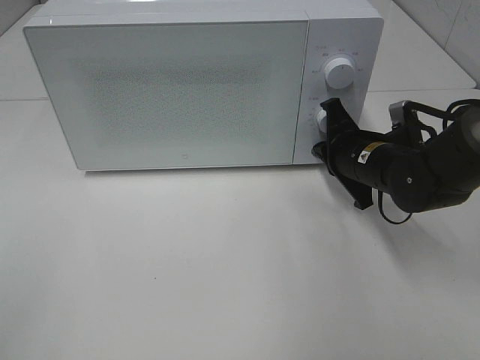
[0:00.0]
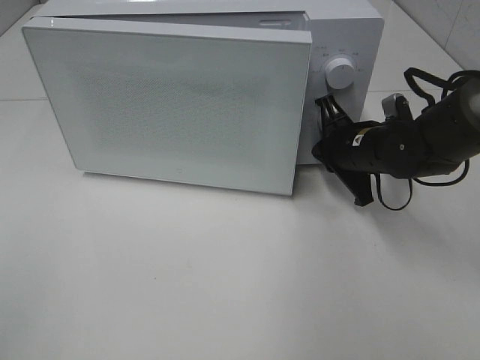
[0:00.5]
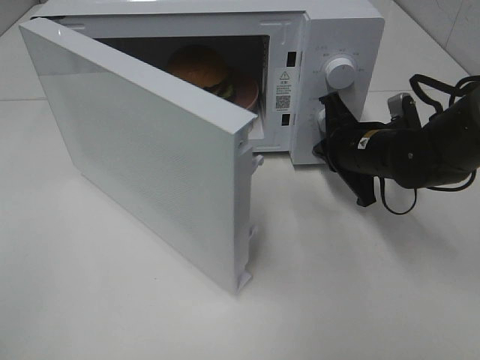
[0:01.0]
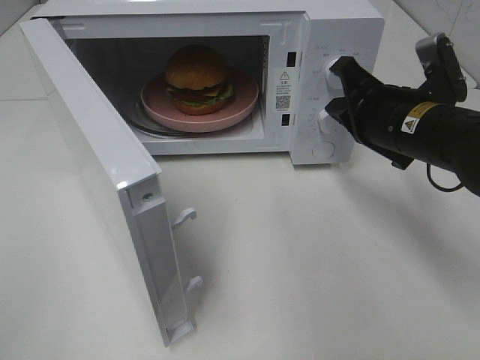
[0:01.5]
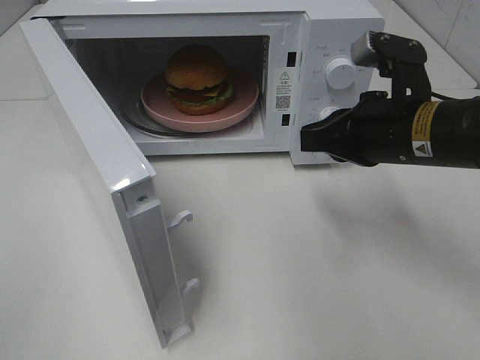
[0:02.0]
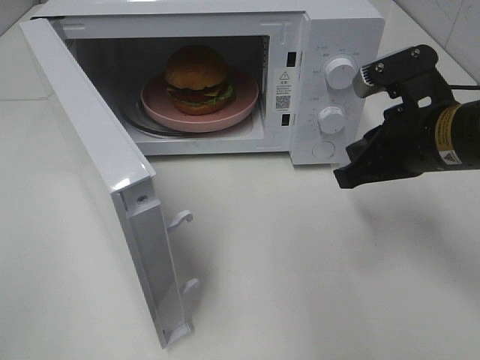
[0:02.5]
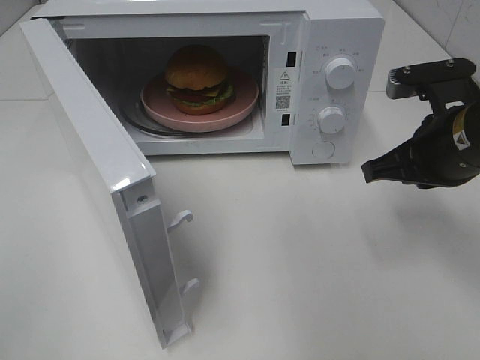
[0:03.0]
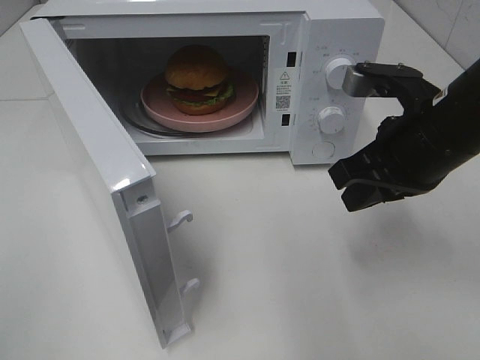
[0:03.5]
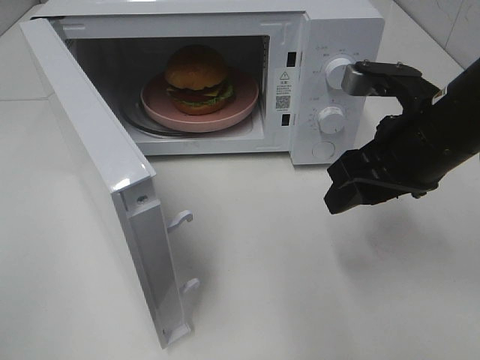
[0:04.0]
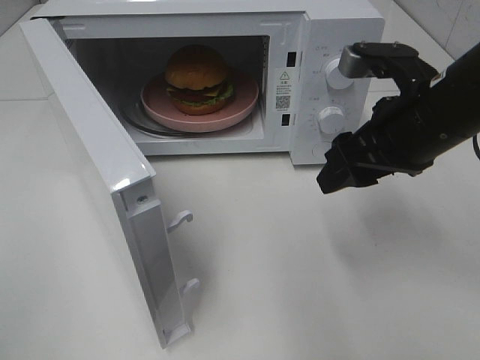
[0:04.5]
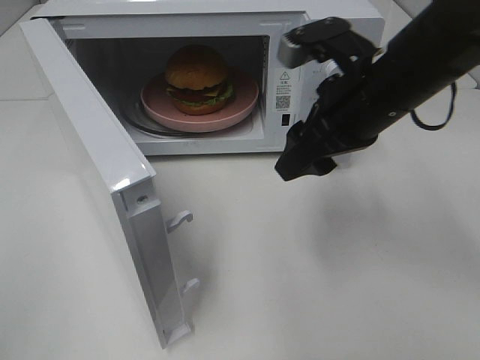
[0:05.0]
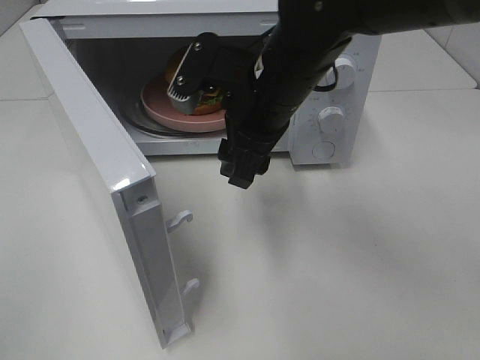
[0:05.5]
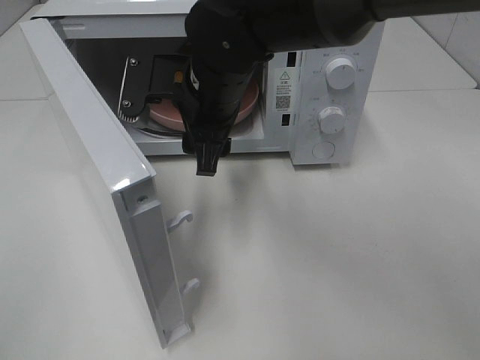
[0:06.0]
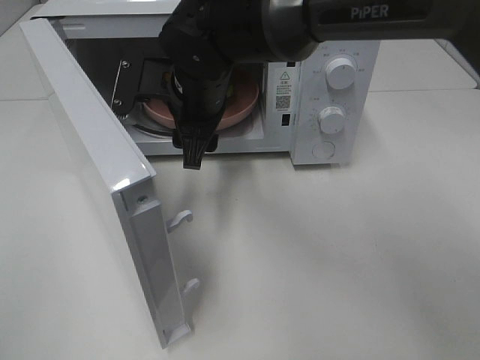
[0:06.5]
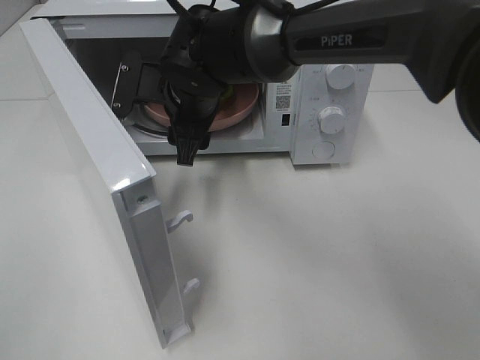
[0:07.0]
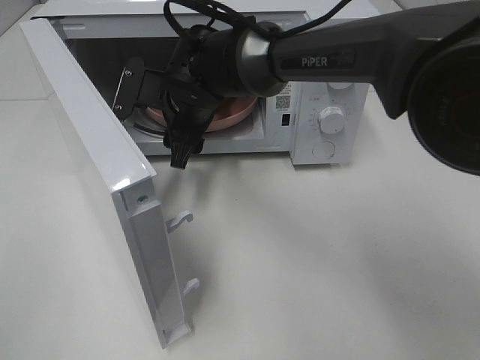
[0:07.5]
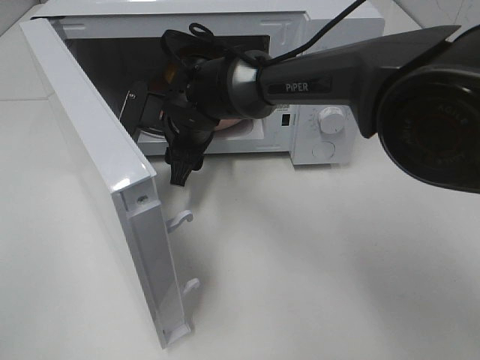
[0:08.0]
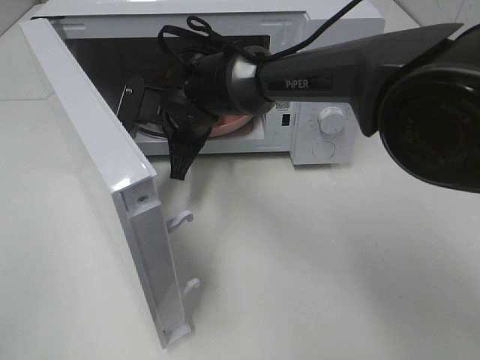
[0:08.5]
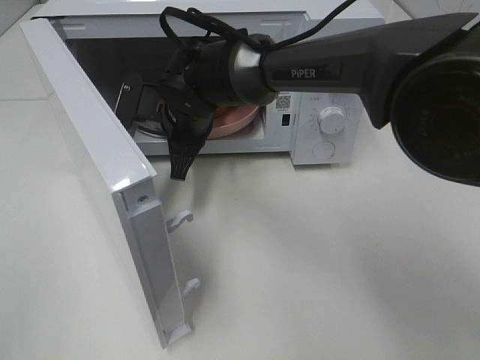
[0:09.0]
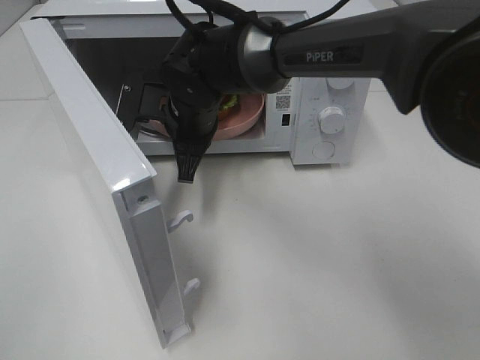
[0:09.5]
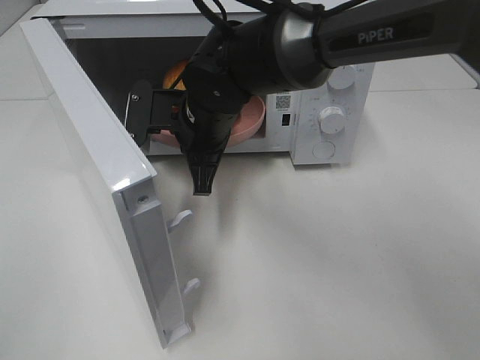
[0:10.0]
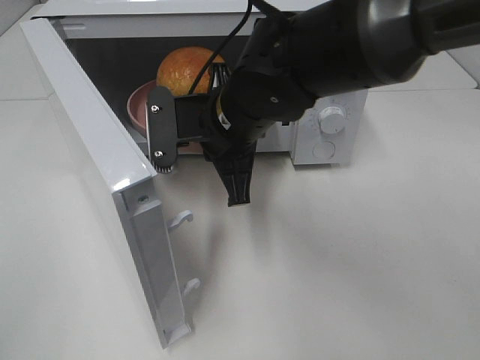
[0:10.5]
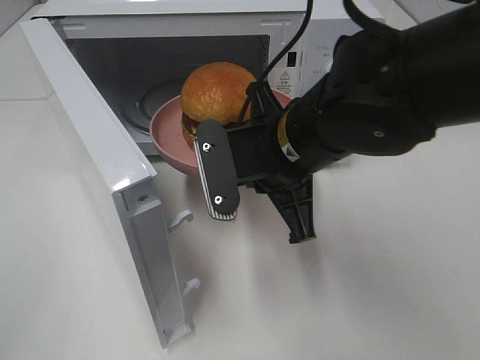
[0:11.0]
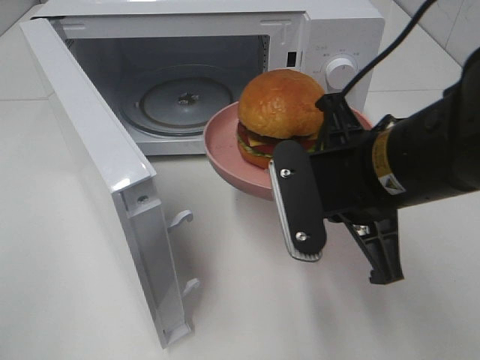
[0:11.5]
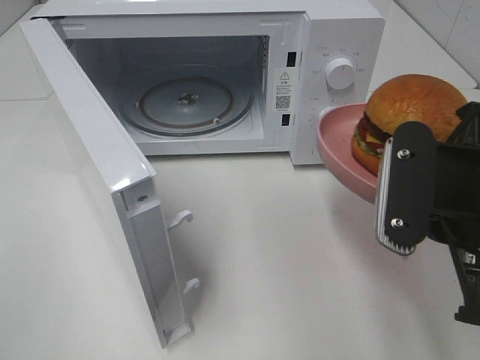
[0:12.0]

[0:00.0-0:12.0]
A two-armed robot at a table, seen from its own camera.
Task of the whole recording: Heat the burger.
Step, 0:01.5 to 0:08.5: Right hand: grab the plate with the hamburger.
0:00.0 to 0:02.0: The right gripper goes about 15 cm upward and backward.
0:02.0 to 0:04.0: The right gripper opens.
0:04.0 to 0:06.0: The right gripper moves to the left, about 20 cm.
0:06.0 to 0:08.0: The right gripper goes about 10 cm downward and forward.
0:08.0 to 0:10.0: The right gripper moves roughly 5 cm, and closes its fingers.
0:10.0 to 0:12.0: The right gripper is displaced to the right and backward by approximately 30 cm.

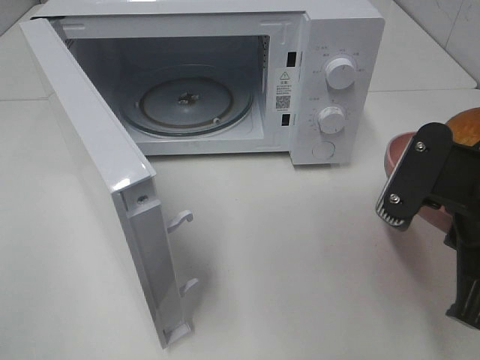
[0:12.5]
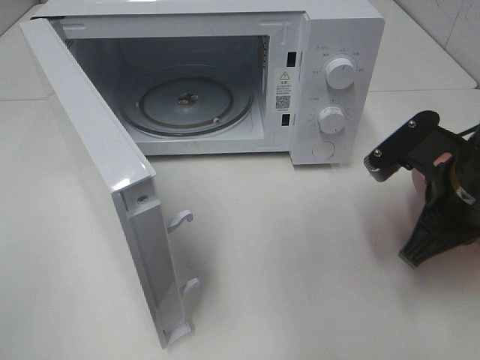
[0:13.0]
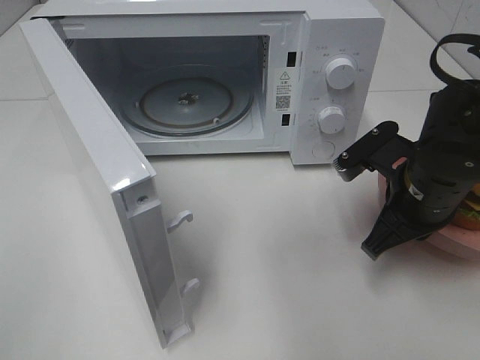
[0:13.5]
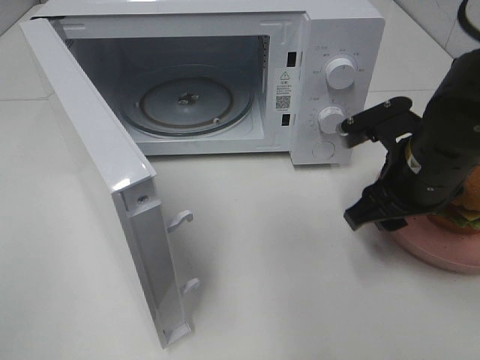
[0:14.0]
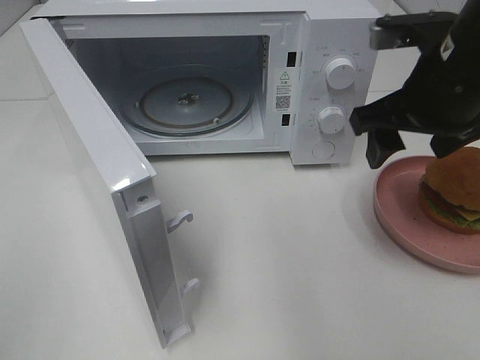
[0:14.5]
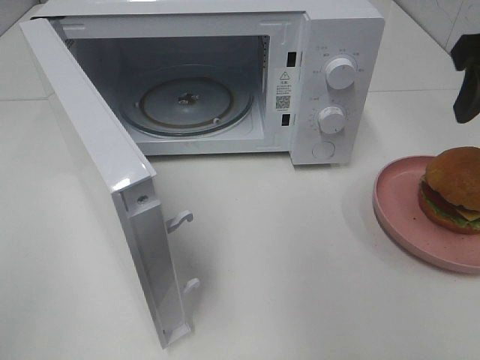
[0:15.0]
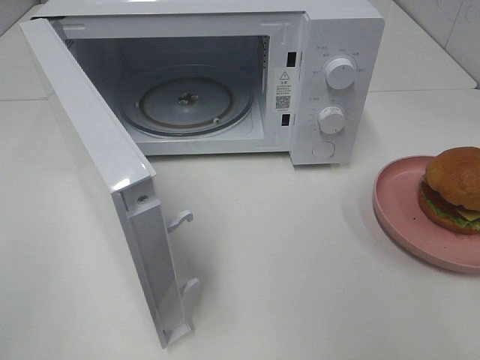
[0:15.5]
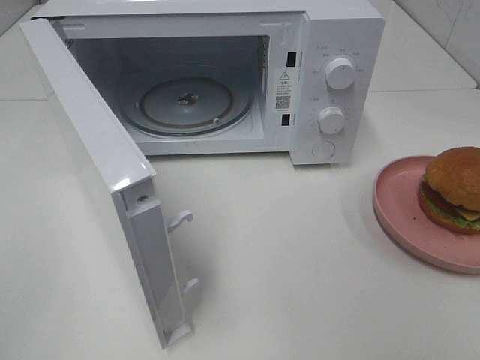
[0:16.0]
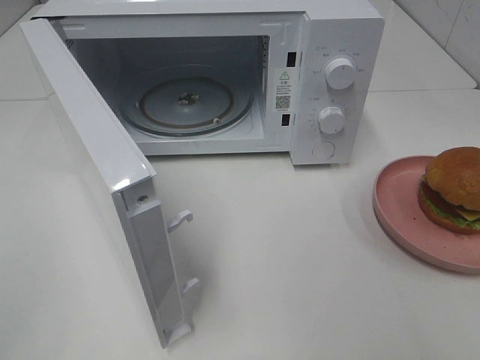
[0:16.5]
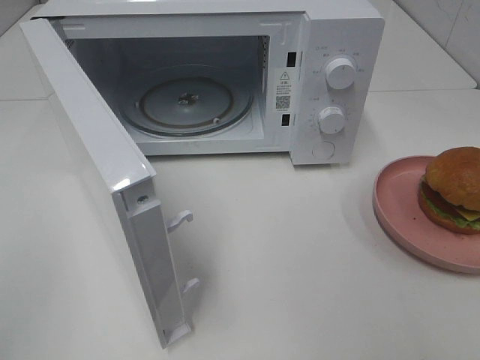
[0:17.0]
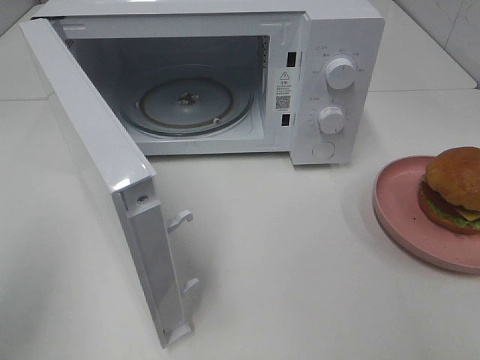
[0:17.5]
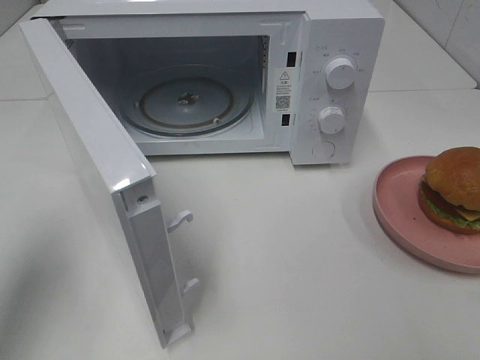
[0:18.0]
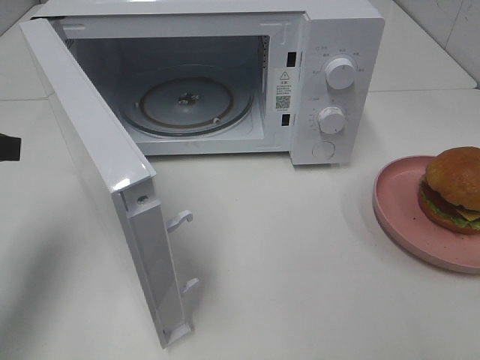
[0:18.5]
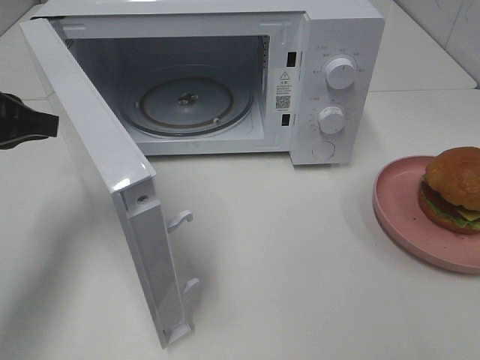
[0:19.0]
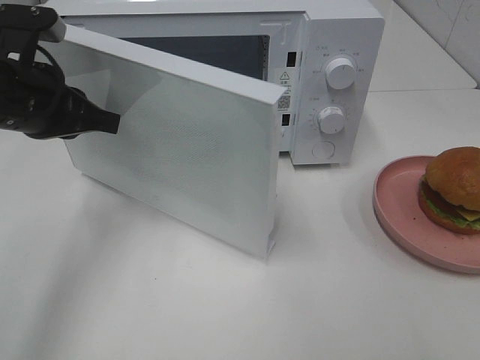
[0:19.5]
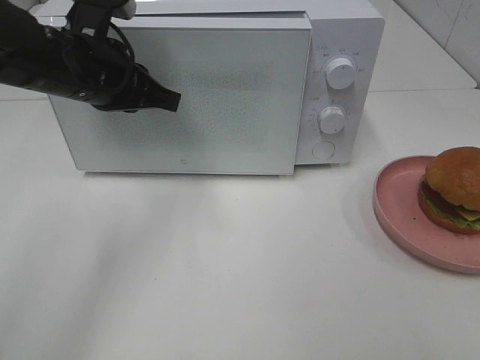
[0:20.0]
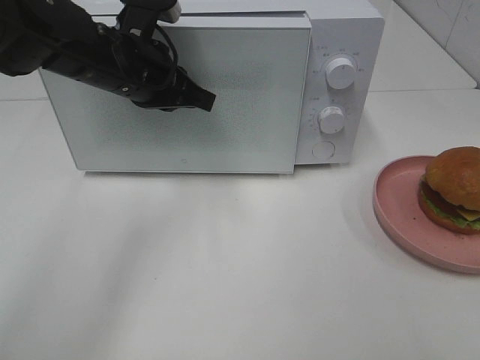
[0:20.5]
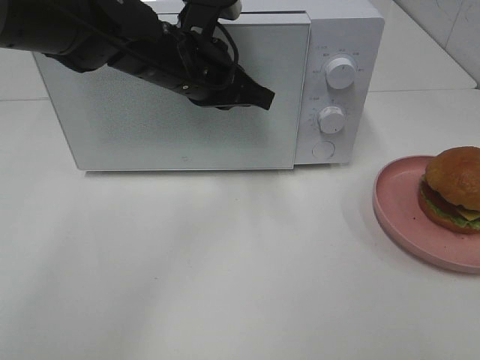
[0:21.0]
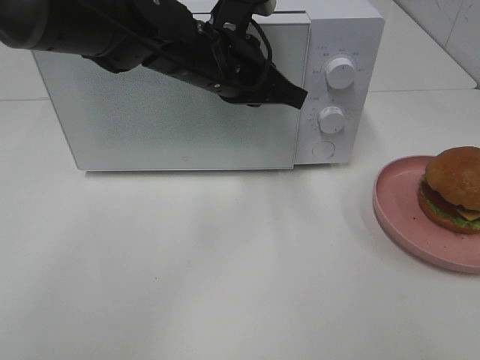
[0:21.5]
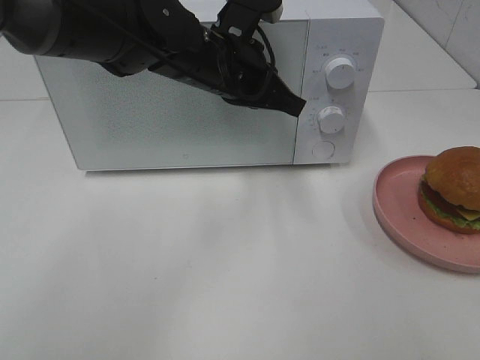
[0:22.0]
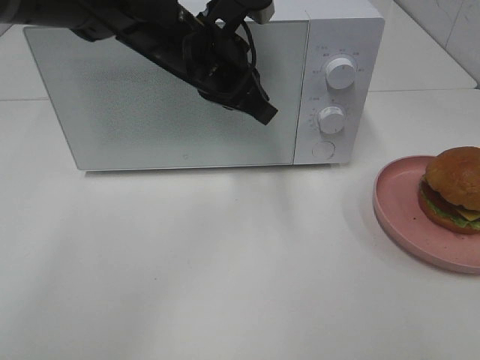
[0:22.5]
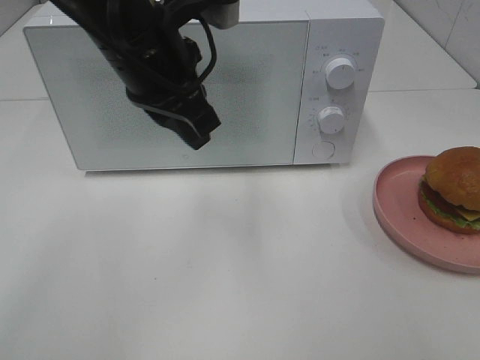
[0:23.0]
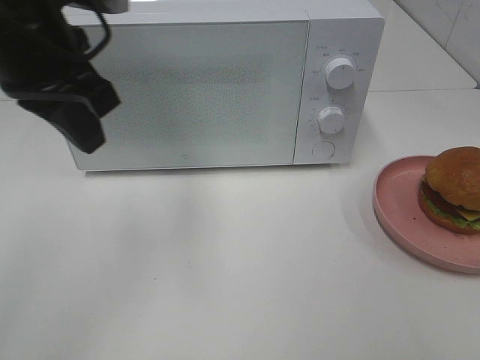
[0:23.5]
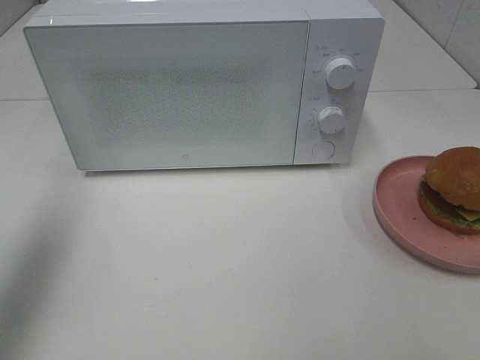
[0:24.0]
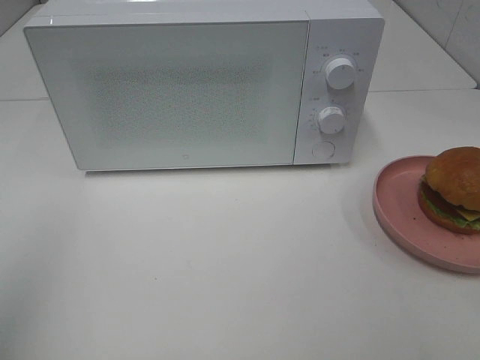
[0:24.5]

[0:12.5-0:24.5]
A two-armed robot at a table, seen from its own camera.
Task of the whole recording: Heat the burger.
Step, 0:14.0 to 0:22.0: Left hand: close the microwave door.
0:12.5 to 0:14.5: The right gripper travels forward by roughly 10 cm, and opens.
0:14.5 to 0:16.5: The right gripper moves backward, some 30 cm.
0:16.5 to 0:18.5: The left gripper goes some 25 cm forward.
0:18.5 to 0:20.5: The left gripper is displaced to the right and forward by about 20 cm.
0:20.5 to 0:22.5: The left gripper goes approximately 10 cm to the right.
0:22.5 to 0:24.5: The left gripper travels backward and to the left by roughly 40 cm.

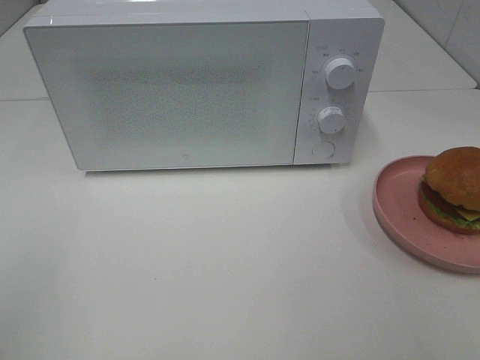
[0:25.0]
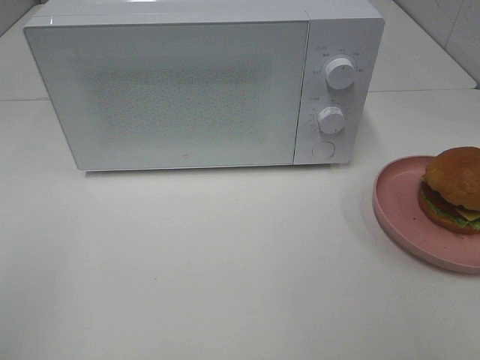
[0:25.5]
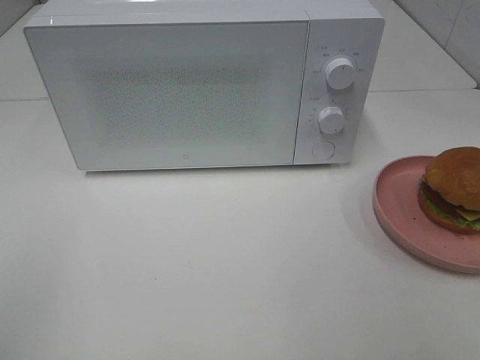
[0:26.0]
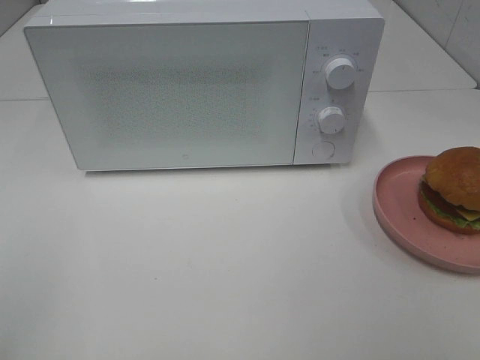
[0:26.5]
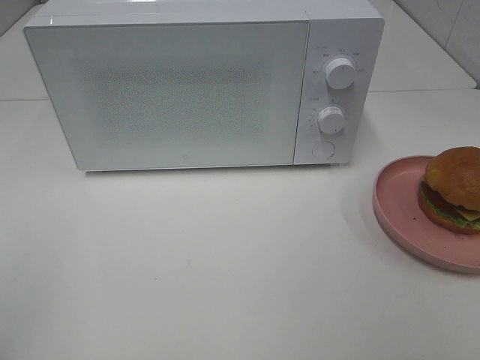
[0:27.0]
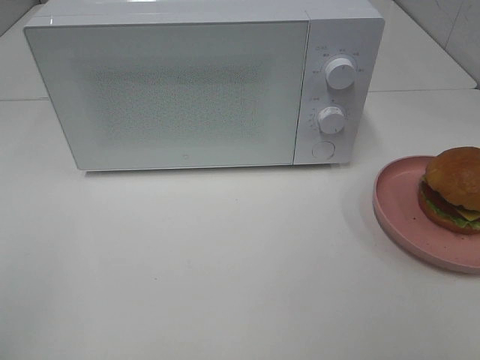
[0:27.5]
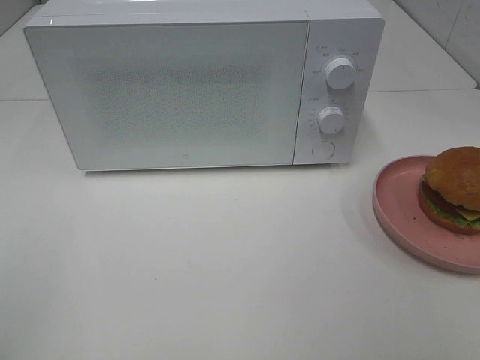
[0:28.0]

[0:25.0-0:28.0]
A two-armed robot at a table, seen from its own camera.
Task of the whole recording: Heat the burger.
0:26.5 to 0:28.0: Both grippers stay put.
